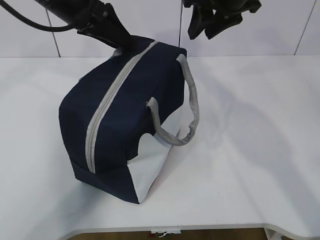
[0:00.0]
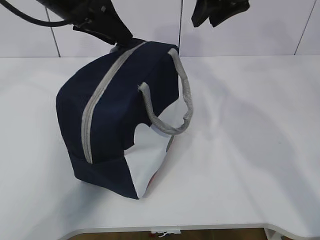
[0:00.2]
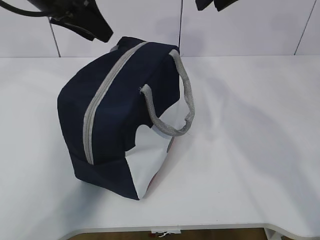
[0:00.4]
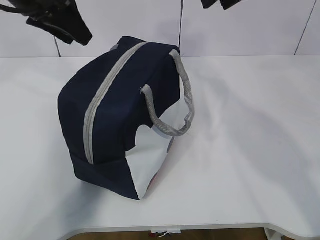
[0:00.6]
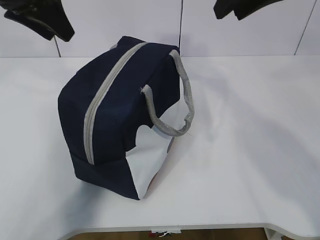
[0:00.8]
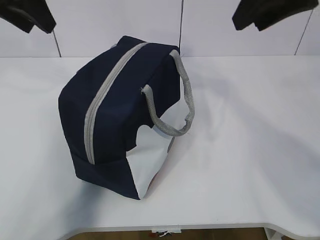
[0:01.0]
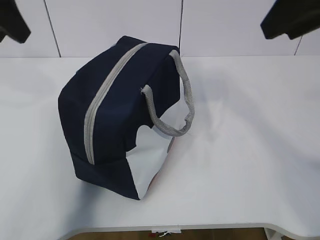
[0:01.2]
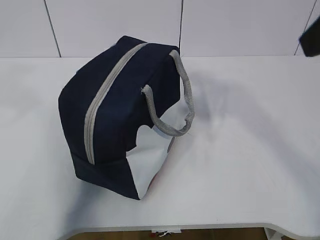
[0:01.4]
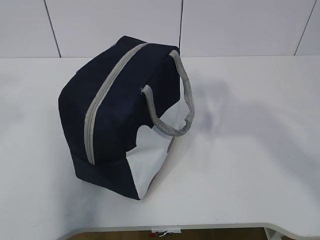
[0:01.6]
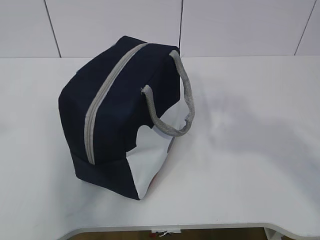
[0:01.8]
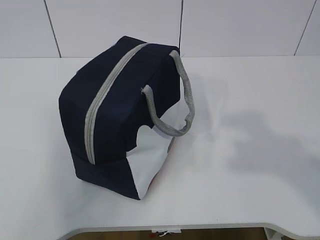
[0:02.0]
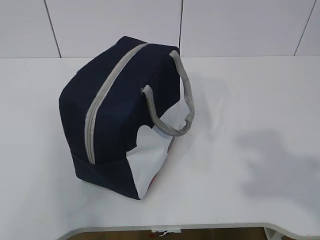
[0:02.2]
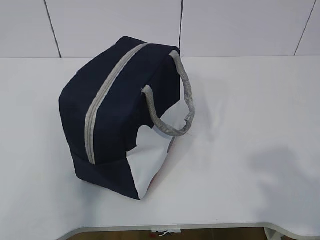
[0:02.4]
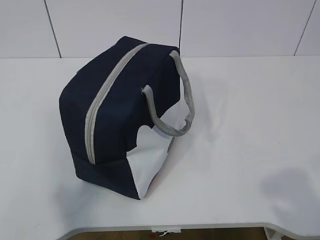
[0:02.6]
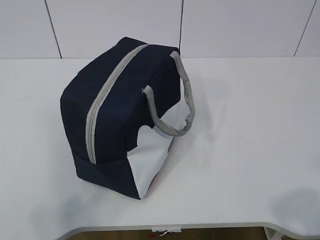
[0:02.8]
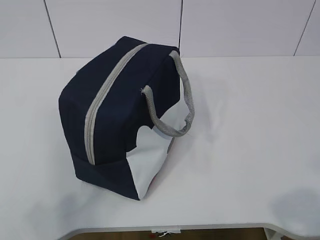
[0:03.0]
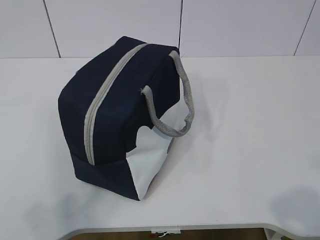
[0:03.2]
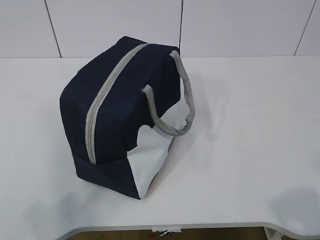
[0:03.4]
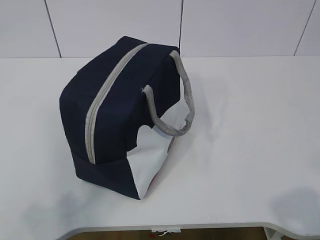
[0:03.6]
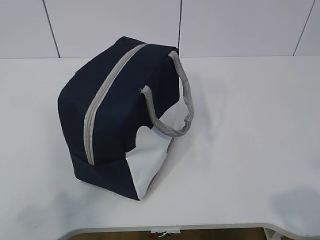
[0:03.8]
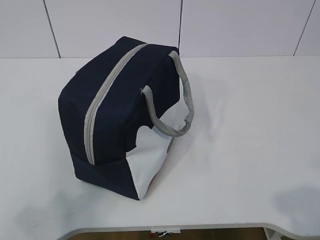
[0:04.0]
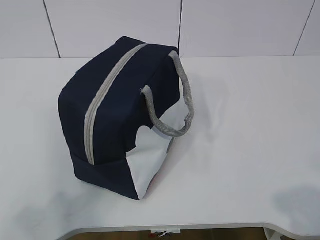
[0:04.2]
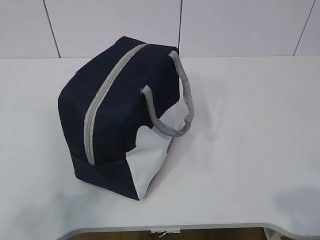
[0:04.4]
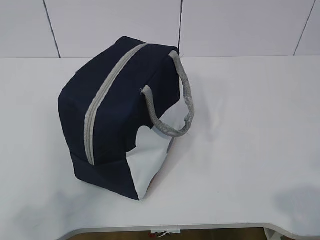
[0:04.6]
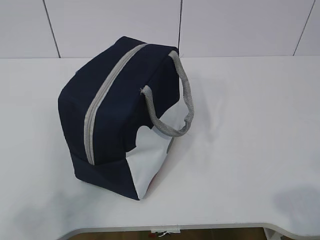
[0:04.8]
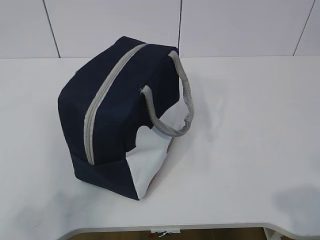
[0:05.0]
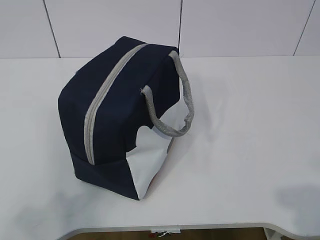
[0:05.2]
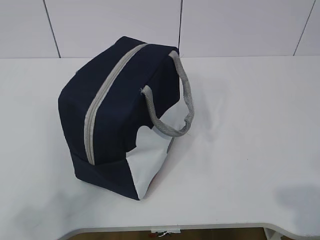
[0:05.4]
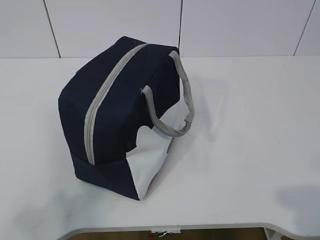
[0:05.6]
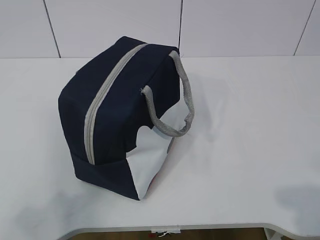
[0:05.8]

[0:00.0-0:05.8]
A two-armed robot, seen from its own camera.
0:00.0 to 0:01.4: The left gripper goes roughly 20 cm backward, to the left and upward. Meanwhile the right gripper goes approximately 25 cm backward.
0:01.4 to 0:02.8: The right gripper shifts roughly 25 cm backward and downward; the left gripper heads backward, covering roughly 30 cm.
0:02.8 to 0:04.4: The grippers make only small movements.
